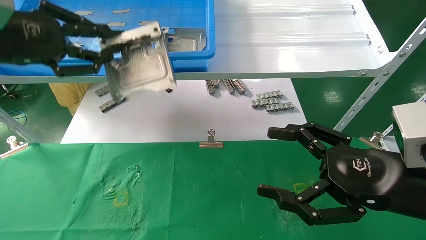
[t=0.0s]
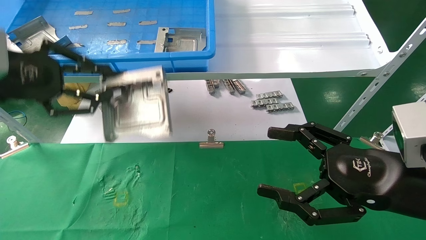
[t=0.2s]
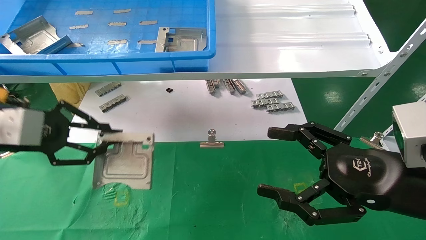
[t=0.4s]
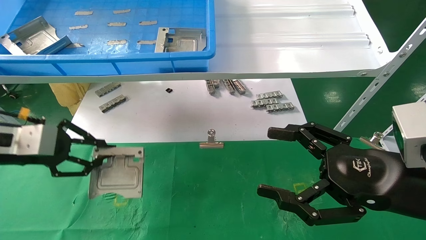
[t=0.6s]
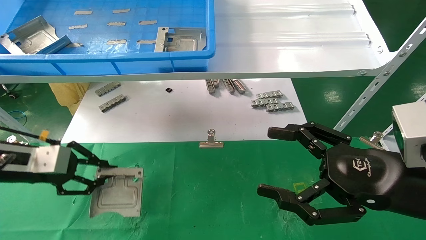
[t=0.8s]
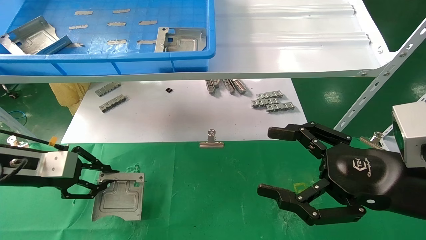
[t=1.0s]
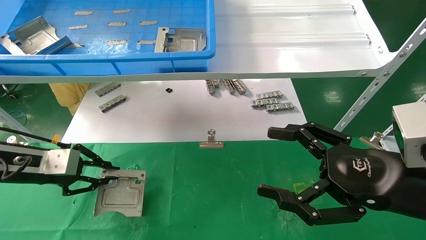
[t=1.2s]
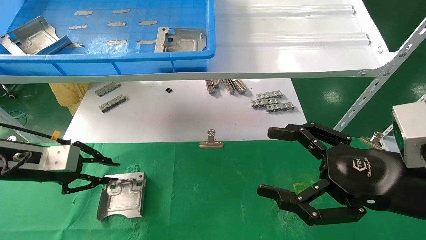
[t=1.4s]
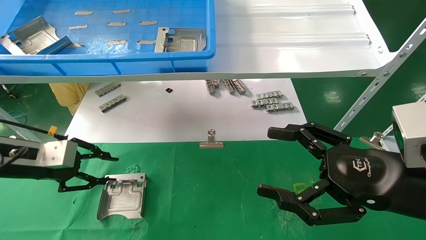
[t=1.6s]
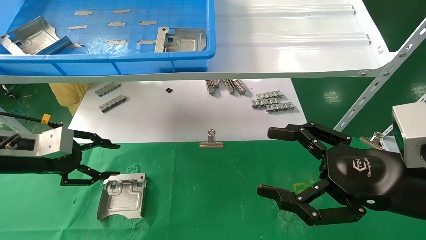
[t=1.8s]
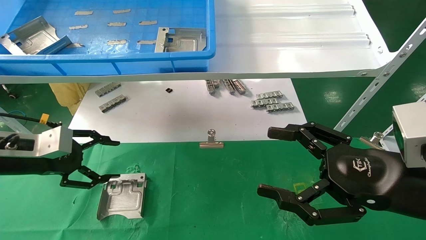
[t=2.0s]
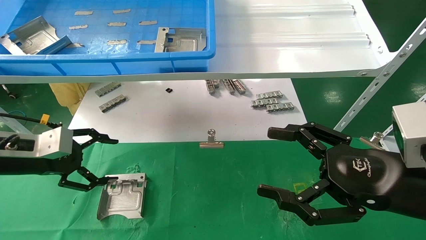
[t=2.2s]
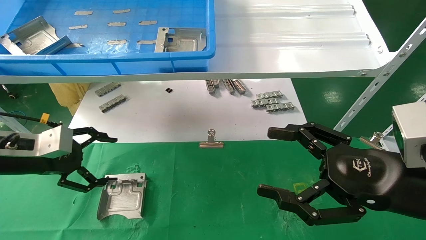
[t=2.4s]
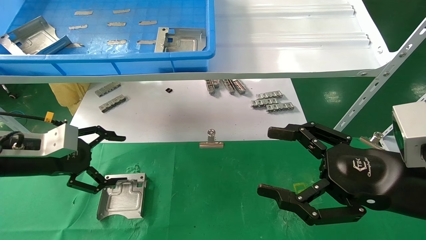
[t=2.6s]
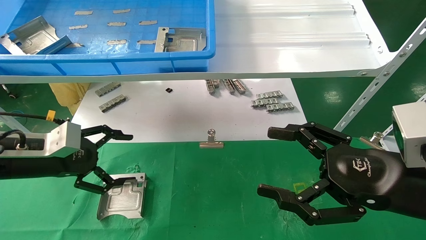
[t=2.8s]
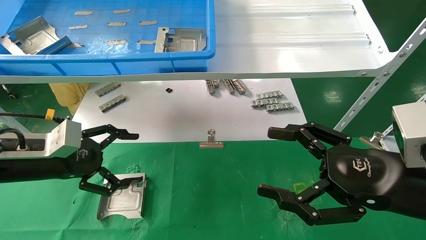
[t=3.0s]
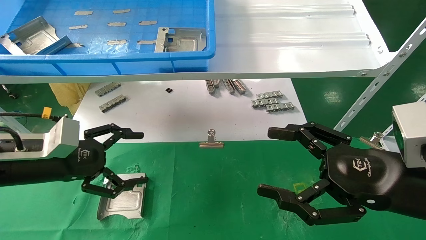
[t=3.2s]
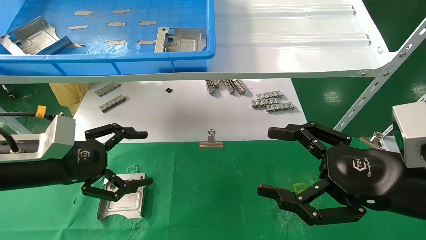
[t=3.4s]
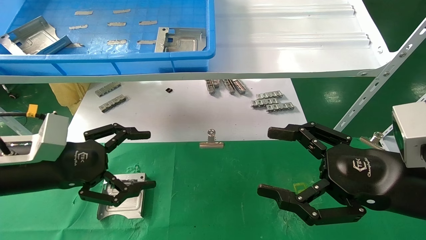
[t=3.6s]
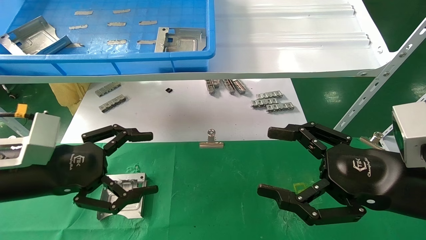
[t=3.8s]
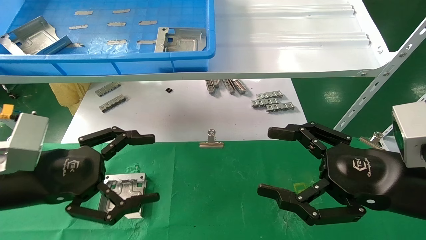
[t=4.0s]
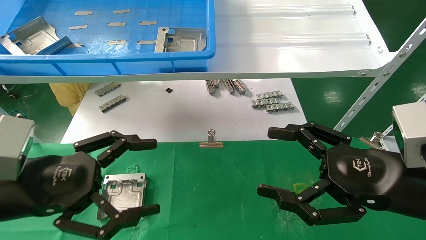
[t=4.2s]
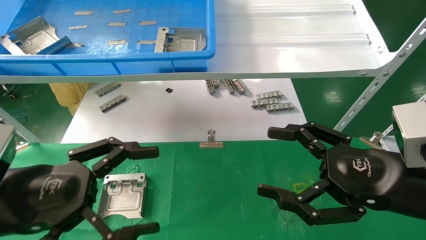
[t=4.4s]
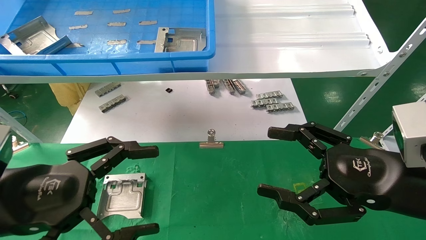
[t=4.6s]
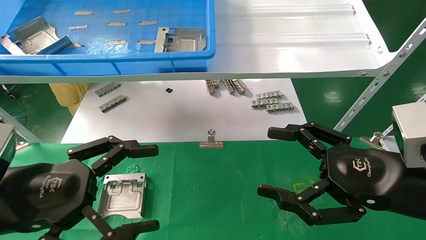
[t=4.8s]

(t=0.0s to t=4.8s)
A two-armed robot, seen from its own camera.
Task of the whole recording: use the mechanical arm to pick up the parts and place them on the table.
Step, t=0.0s - t=1.4s: Place the hard drive bracket into the box.
t=0.0s - t=1.6s: The left gripper heads downward, covering about 20 cm.
t=1.6s - t=3.2s: The left gripper goes some 5 cm to the right, and opens.
t=3.2s - t=4.8s: The left gripper heads backward, covering roughly 10 cm.
